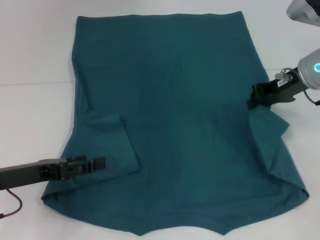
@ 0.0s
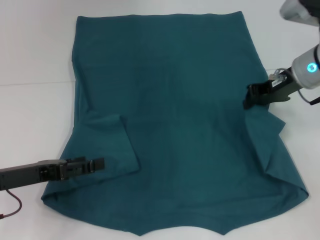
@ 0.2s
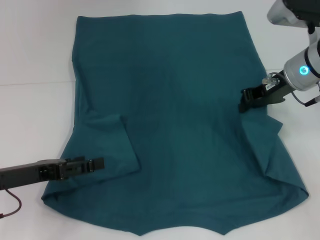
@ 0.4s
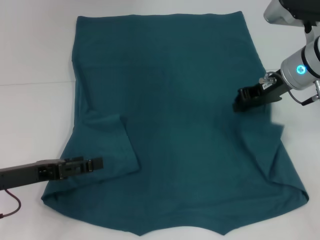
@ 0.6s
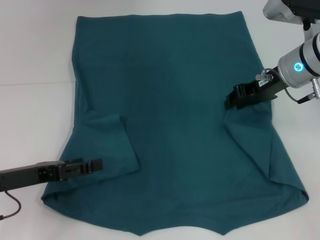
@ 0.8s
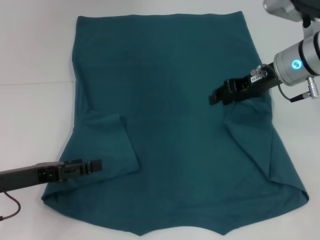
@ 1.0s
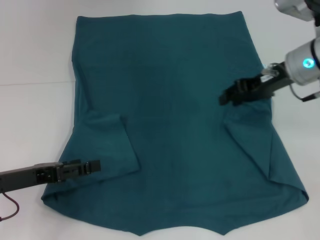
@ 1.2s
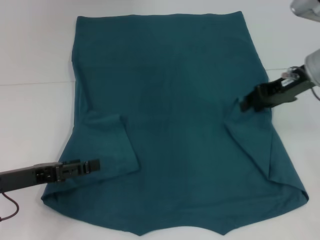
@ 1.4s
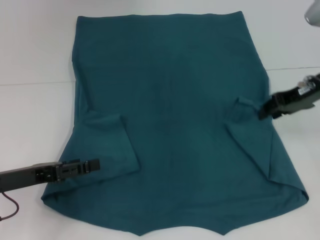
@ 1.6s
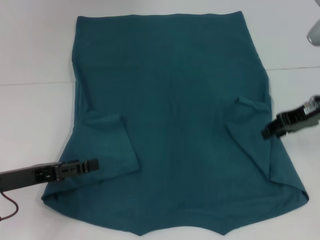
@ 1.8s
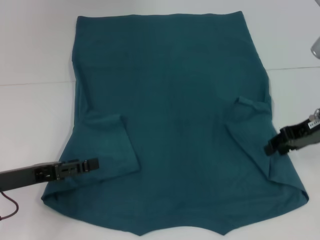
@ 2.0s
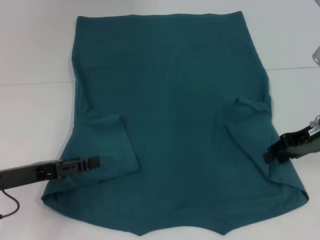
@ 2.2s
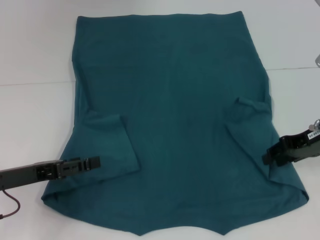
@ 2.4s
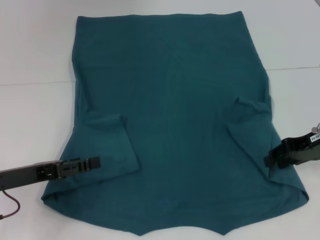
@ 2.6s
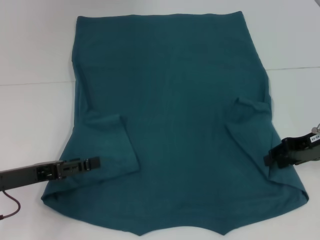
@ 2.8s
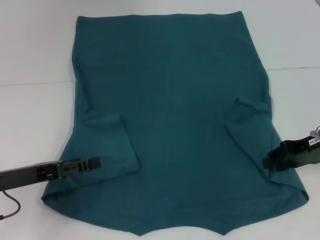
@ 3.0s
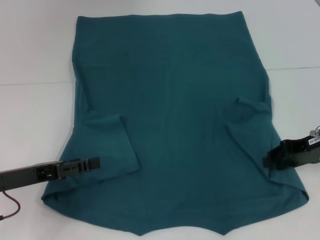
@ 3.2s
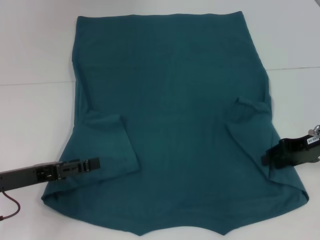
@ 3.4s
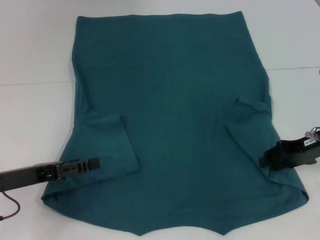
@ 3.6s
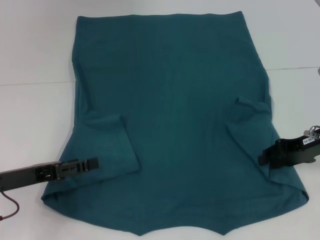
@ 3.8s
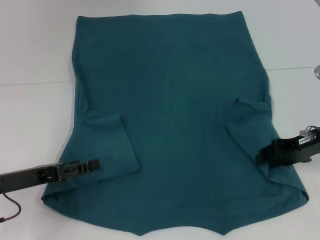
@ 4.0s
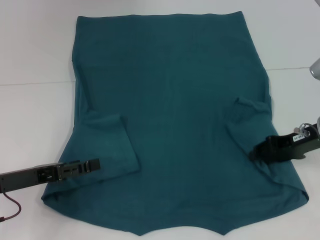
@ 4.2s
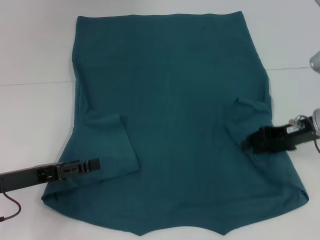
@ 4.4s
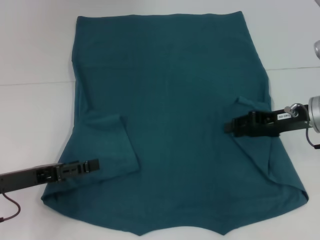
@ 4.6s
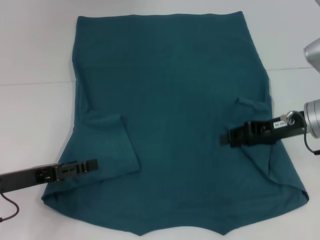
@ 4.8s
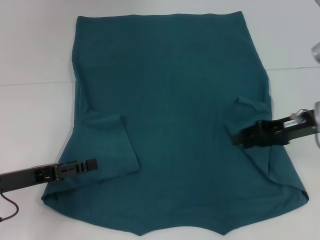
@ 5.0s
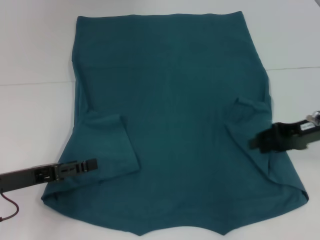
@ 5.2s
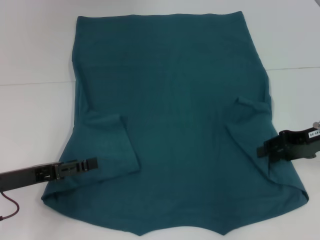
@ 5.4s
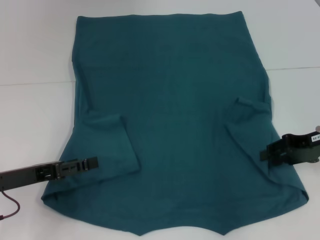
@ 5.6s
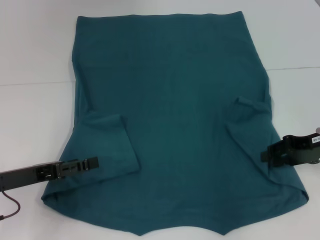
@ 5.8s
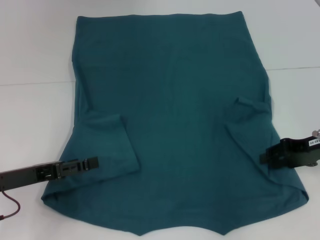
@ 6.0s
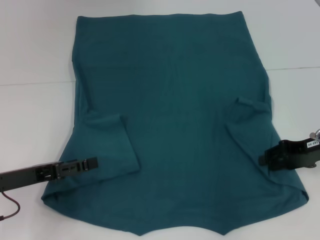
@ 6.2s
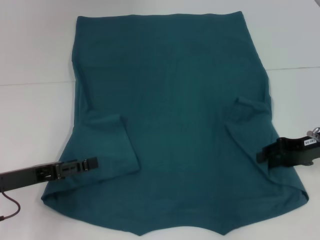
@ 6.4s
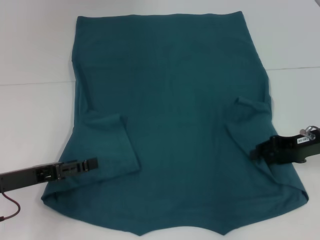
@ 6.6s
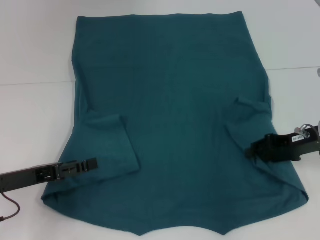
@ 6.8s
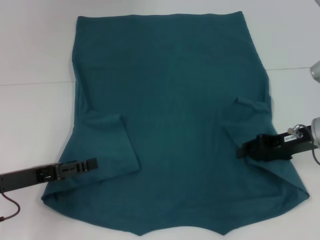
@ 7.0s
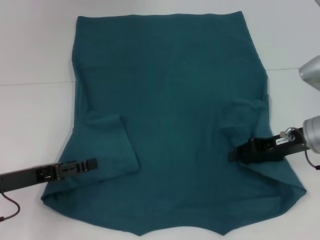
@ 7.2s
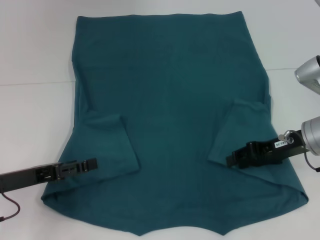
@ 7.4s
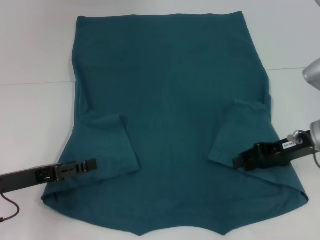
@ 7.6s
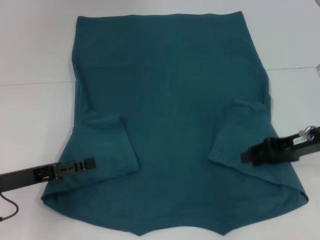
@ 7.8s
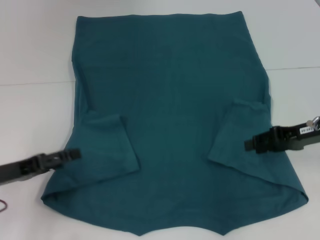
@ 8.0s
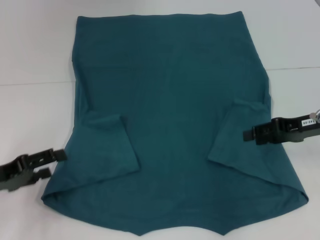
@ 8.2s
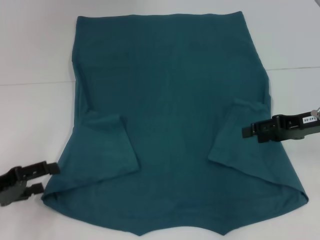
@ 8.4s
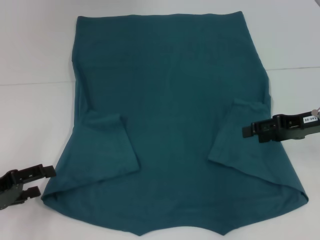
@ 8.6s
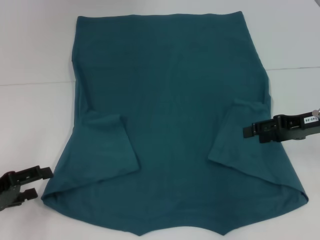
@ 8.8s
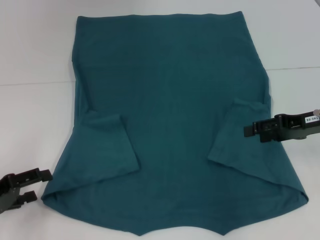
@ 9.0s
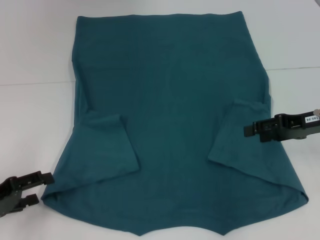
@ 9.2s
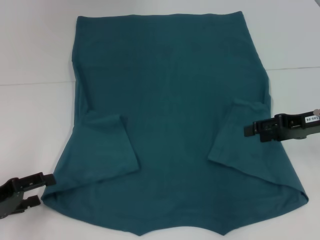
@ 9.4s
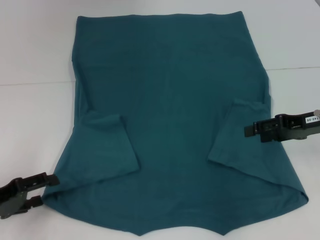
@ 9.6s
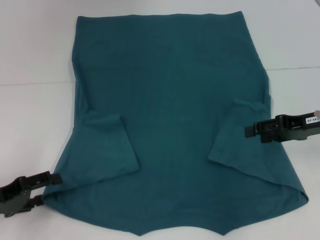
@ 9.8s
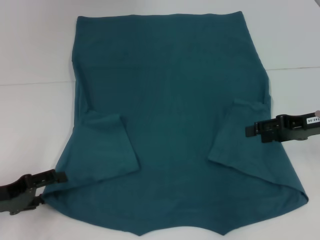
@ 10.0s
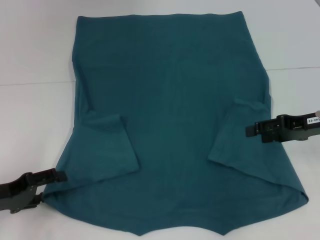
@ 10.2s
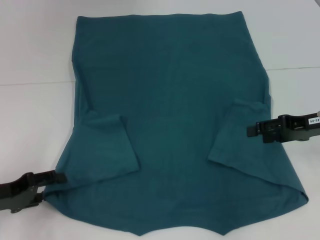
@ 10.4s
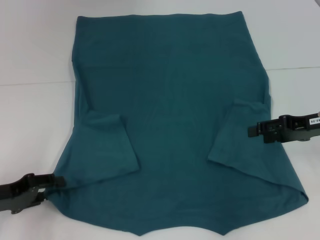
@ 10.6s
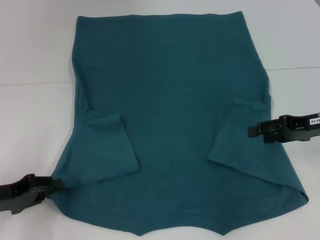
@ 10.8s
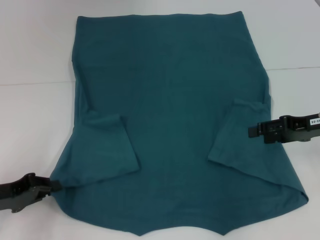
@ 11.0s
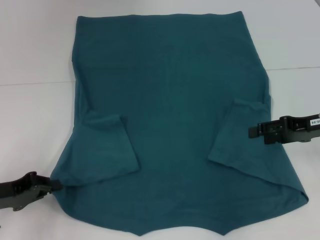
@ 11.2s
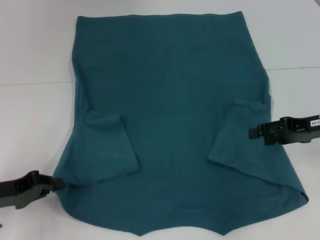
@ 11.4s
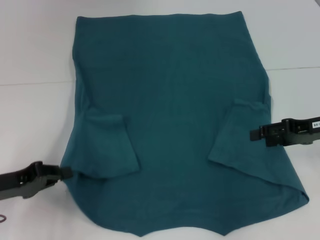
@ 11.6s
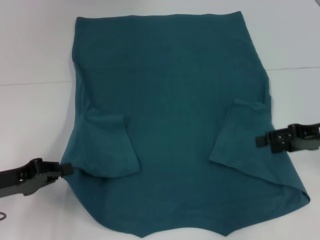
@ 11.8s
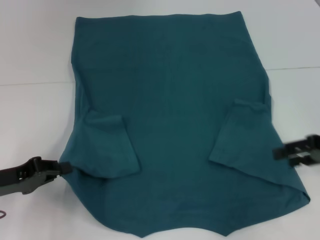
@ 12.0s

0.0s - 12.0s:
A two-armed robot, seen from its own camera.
Step, 0.0s - 7.8s: Fold the bottom right sleeve to the right.
Step, 8.0s - 11.0s: Grab the bottom left corner with your left hand.
0.0s - 1.6s: The right gripper opens up.
1.6s - 3.0s: The right gripper is displaced downward and backward by some 10 cm.
3.0s - 4.4s: The grippers stay close to where they were, moving slightly.
4.4s - 7.6s: The grippers stay close to where they were, moving slightly.
7.6s - 9.0s: The left gripper heads to the left, covering about 5 cm.
9.0s - 10.4s: The grippers move only a little.
10.4s - 12.0s: The left gripper closes its fingers.

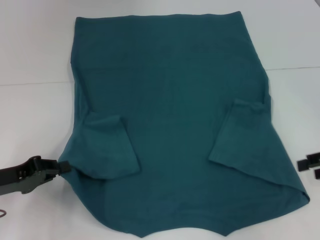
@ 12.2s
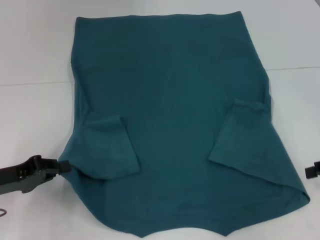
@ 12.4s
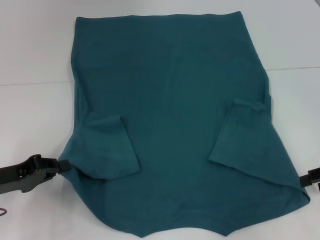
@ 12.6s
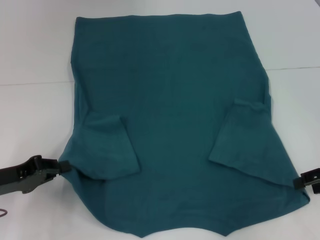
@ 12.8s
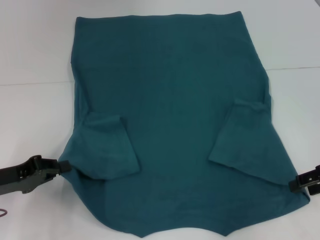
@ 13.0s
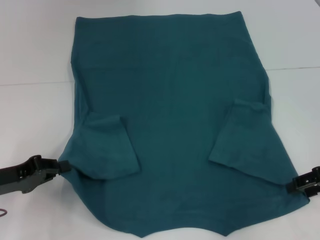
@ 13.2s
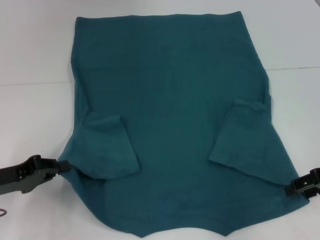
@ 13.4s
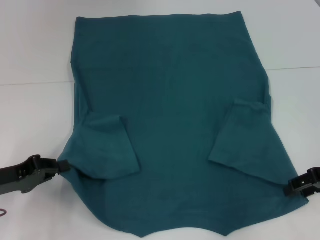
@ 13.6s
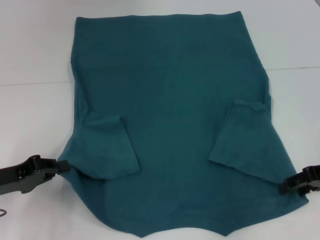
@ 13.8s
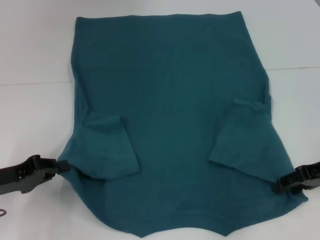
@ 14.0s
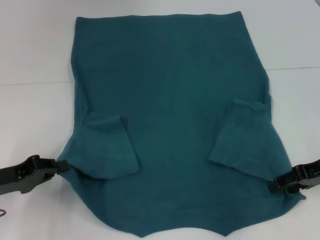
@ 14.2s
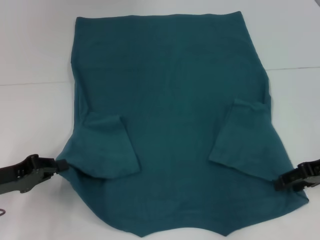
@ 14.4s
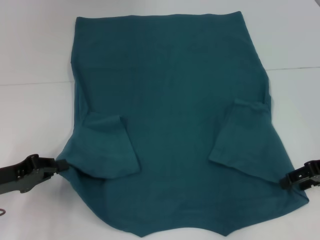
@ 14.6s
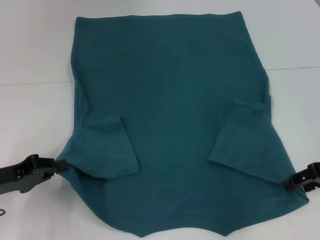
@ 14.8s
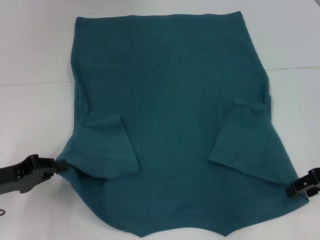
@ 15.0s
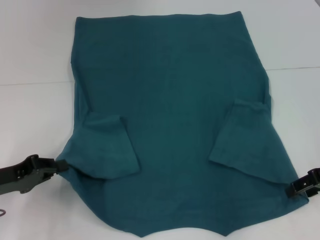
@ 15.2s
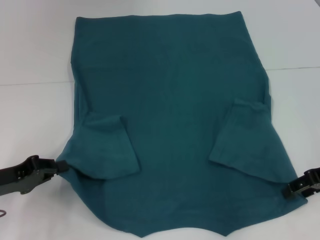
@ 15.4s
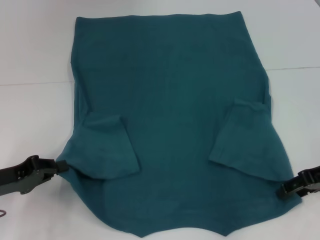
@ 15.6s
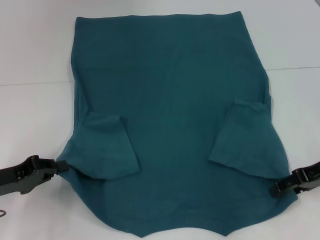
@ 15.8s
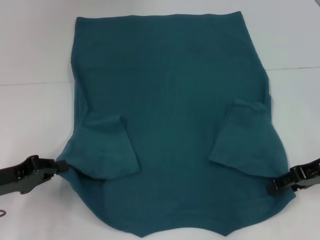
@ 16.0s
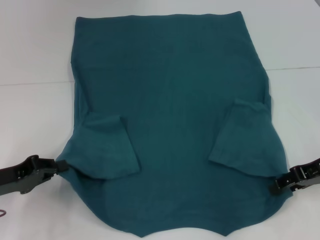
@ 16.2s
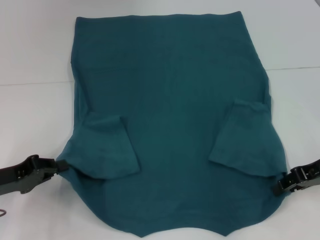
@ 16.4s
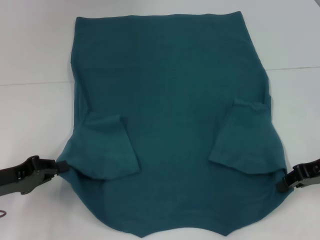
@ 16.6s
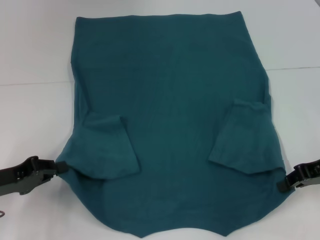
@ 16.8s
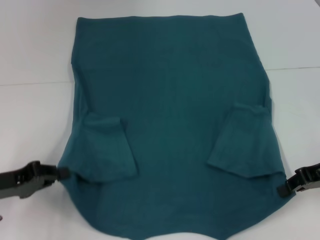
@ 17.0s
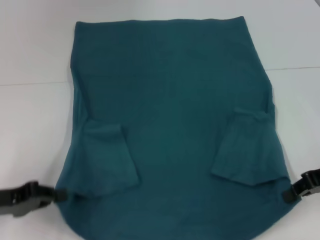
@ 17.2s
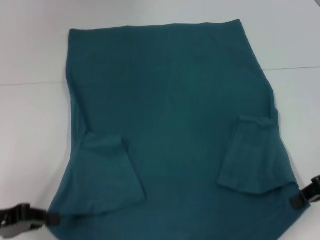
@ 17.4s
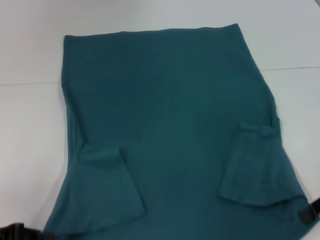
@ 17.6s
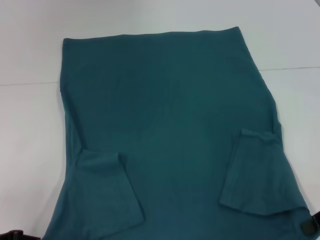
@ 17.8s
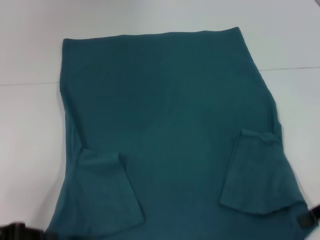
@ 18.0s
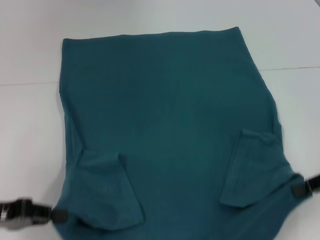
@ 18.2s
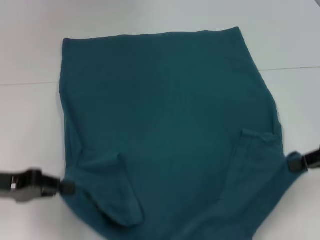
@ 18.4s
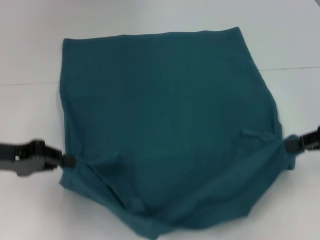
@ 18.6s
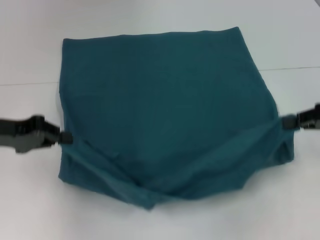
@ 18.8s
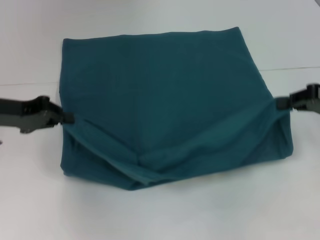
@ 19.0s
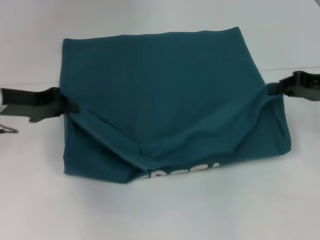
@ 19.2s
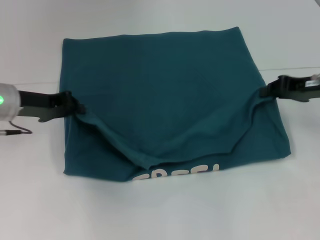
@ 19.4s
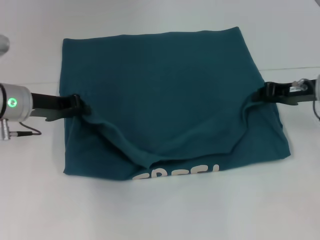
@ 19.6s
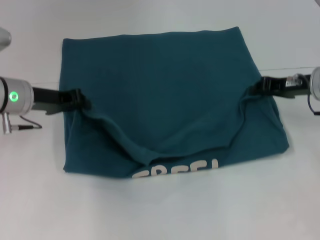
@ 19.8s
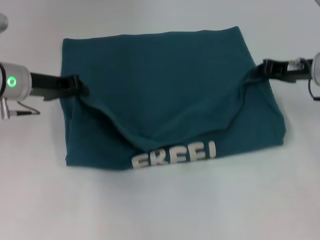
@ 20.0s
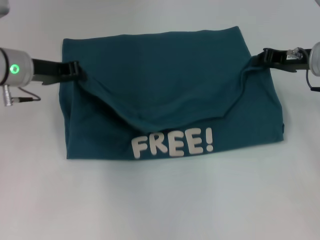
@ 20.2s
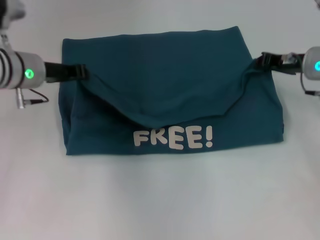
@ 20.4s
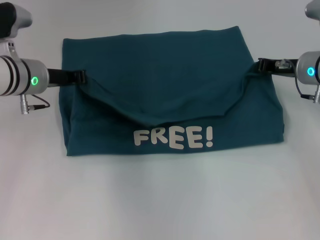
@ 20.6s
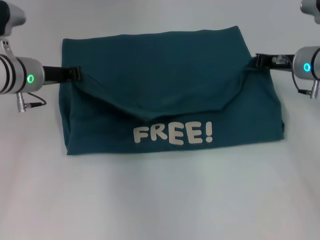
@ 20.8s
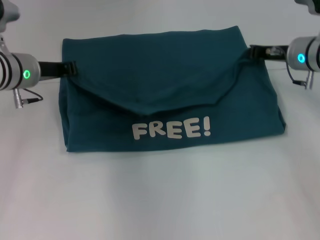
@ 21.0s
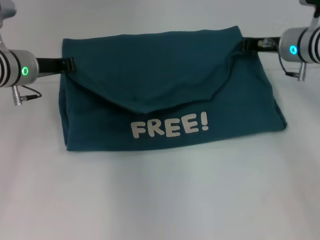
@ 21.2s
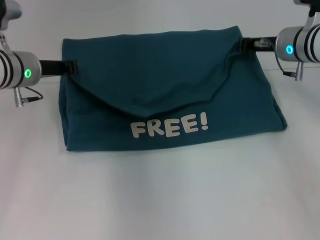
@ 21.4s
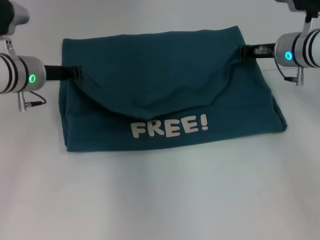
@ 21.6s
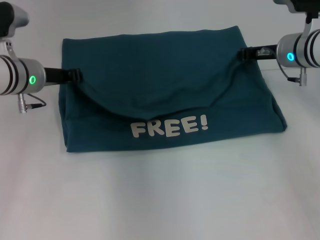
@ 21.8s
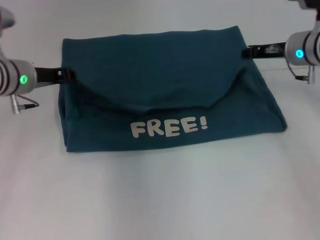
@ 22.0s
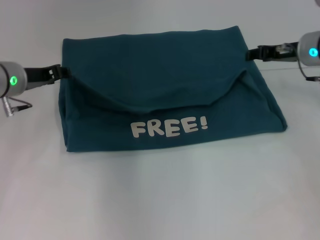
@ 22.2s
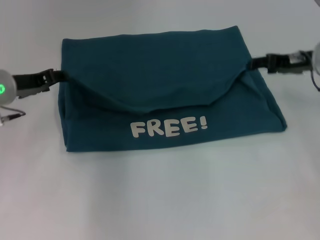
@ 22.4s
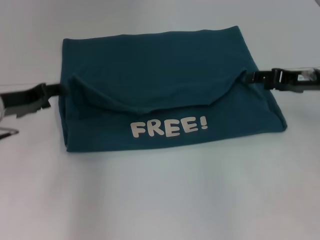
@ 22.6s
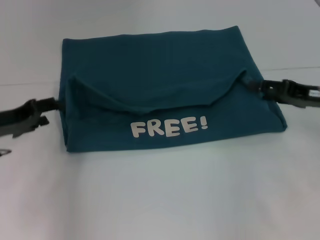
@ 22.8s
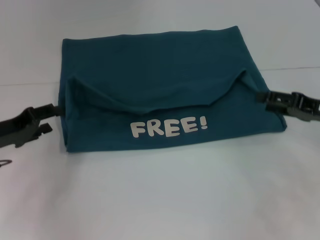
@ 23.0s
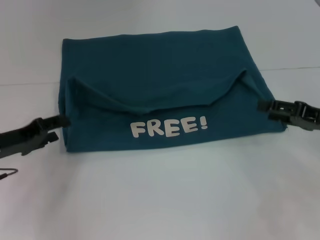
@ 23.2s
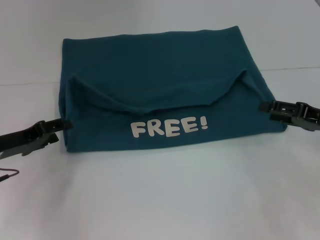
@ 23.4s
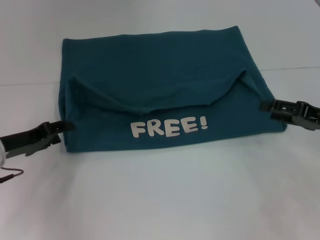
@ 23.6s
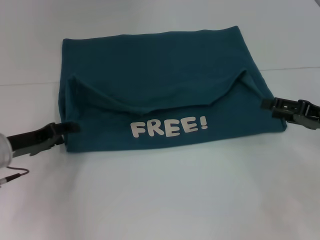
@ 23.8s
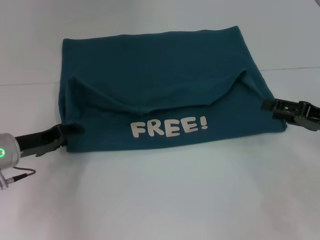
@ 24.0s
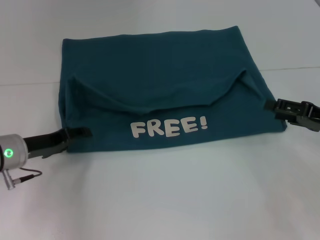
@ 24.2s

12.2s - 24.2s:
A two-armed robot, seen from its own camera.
Step, 12.2s - 16.6s: Grab the bottom right corner with your right hand.
Step, 16.8s - 22.4s: Fold the clothes to the left.
Step, 16.8s - 22.4s: Fold the clothes to the right.
12.2s - 13.8s: There are only small adjustments of the grippers.
13.8s - 16.6s: The grippers move only a little.
16.6s - 18.2s: The right gripper ends up roughly 5 cm from where it was, and closes.
18.2s - 19.8s: The right gripper moves forward and to the left, approximately 15 cm; the left gripper moves forward and to the right, roughly 20 cm.
19.8s - 21.2s: The right gripper moves forward, some 5 cm.
21.2s - 22.6s: The right gripper is displaced backward and to the right by about 10 cm, and opens up; the left gripper travels backward by roughly 5 cm, and opens its fingers.
22.6s - 24.2s: The left gripper heads downward, covering some 5 cm, while the right gripper goes roughly 10 cm backward.
